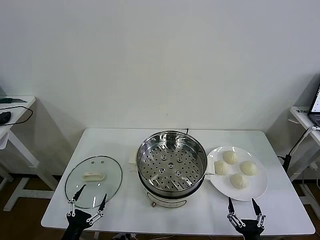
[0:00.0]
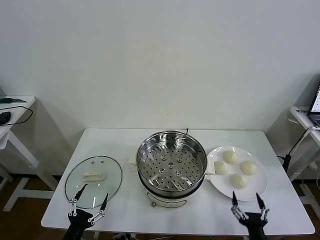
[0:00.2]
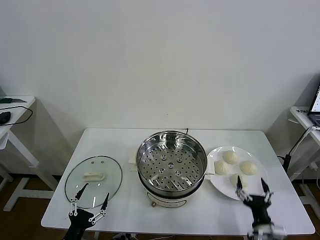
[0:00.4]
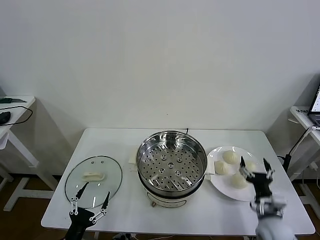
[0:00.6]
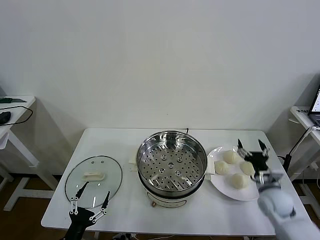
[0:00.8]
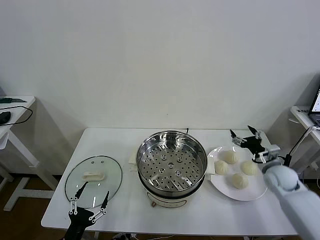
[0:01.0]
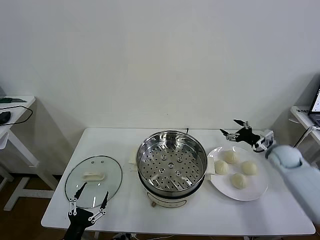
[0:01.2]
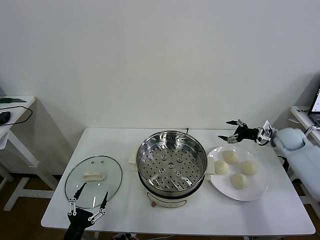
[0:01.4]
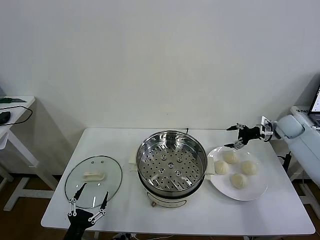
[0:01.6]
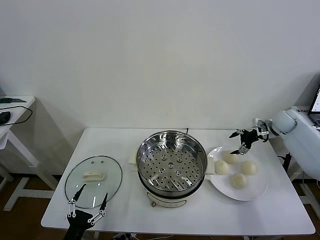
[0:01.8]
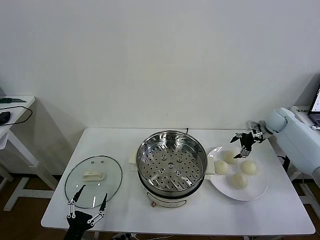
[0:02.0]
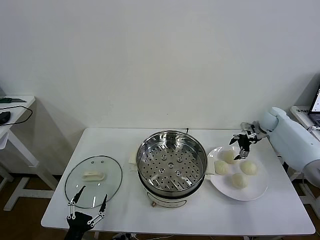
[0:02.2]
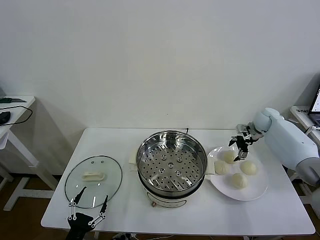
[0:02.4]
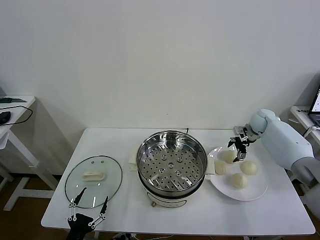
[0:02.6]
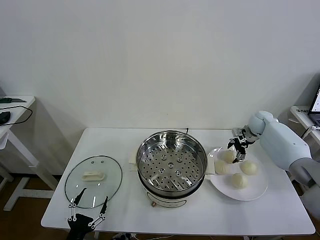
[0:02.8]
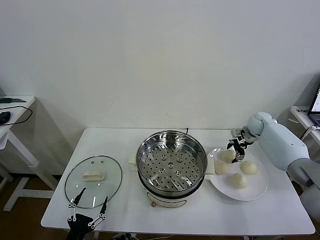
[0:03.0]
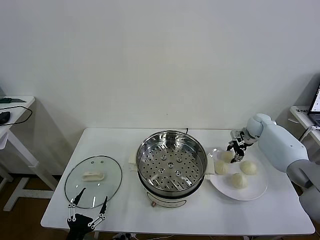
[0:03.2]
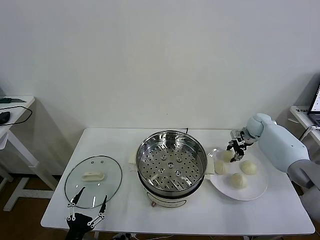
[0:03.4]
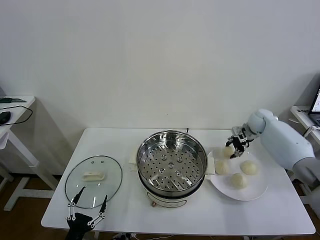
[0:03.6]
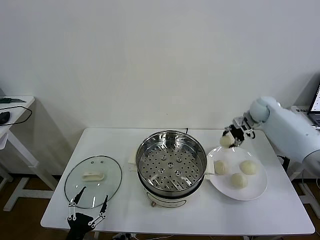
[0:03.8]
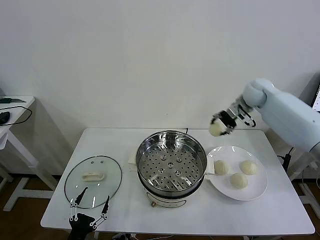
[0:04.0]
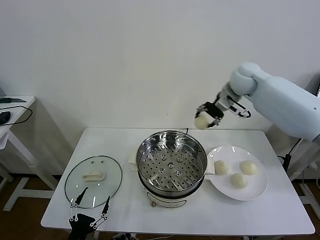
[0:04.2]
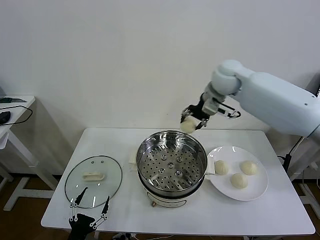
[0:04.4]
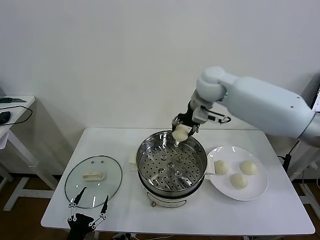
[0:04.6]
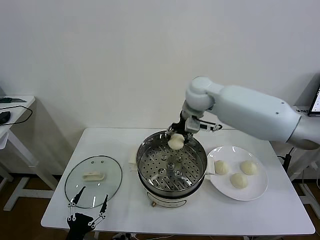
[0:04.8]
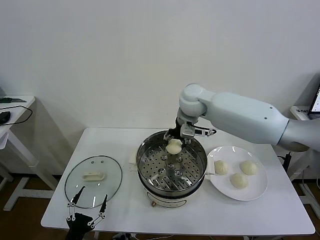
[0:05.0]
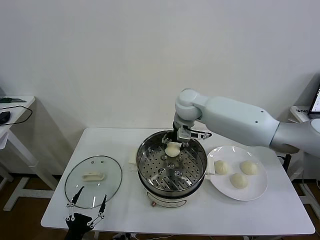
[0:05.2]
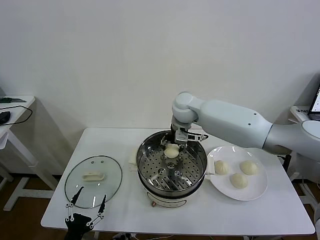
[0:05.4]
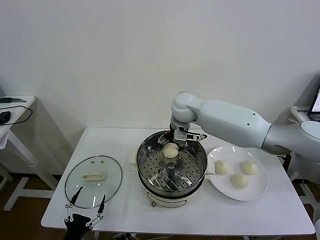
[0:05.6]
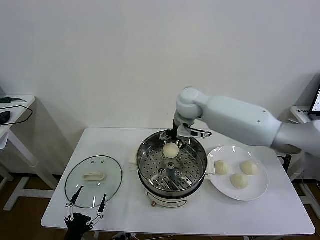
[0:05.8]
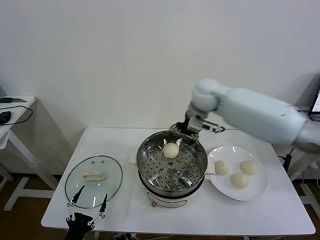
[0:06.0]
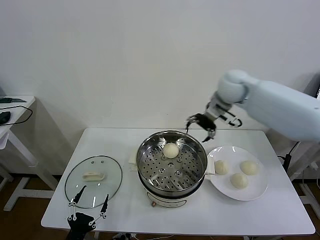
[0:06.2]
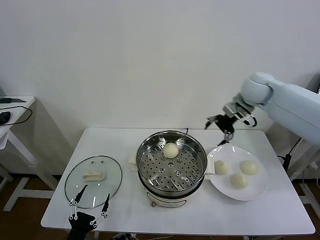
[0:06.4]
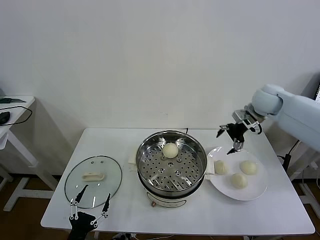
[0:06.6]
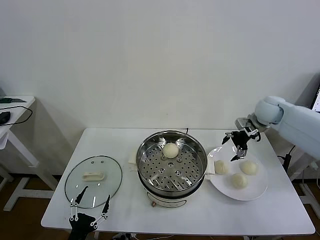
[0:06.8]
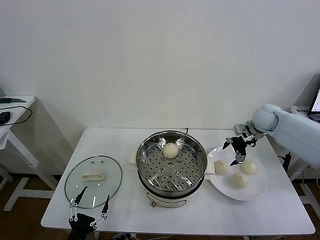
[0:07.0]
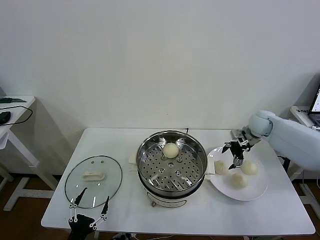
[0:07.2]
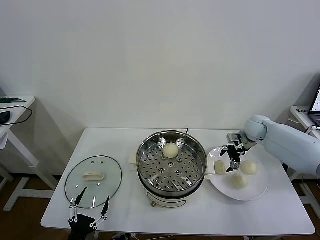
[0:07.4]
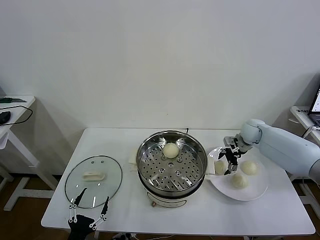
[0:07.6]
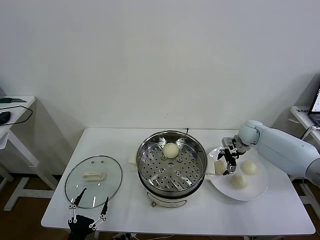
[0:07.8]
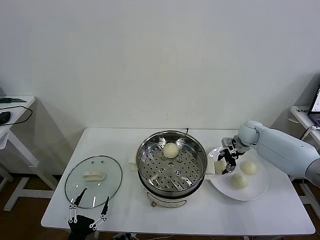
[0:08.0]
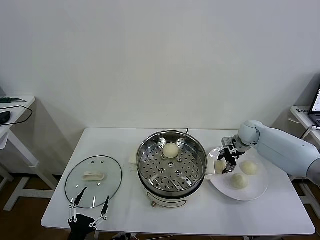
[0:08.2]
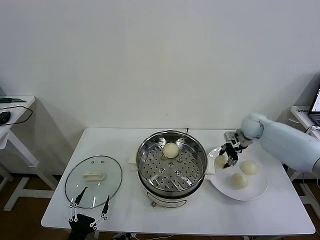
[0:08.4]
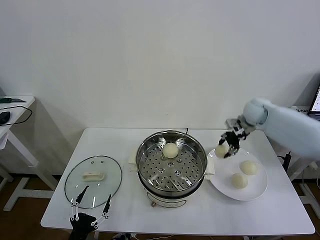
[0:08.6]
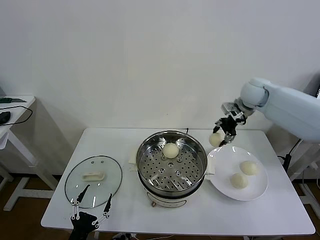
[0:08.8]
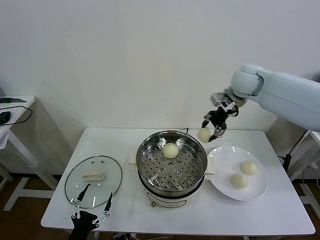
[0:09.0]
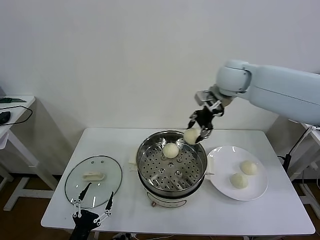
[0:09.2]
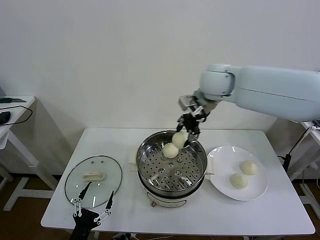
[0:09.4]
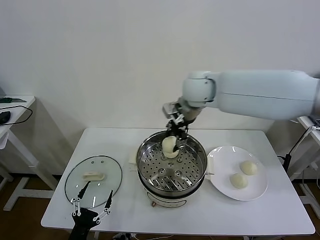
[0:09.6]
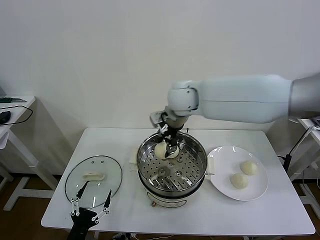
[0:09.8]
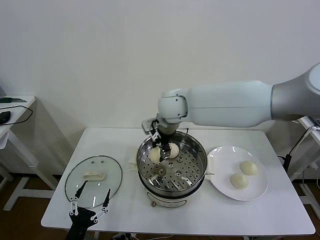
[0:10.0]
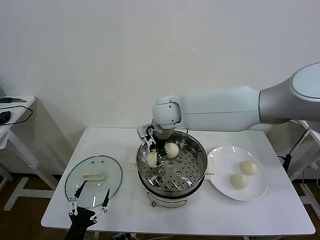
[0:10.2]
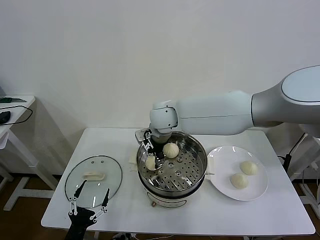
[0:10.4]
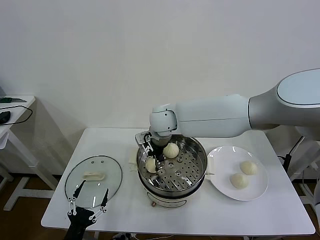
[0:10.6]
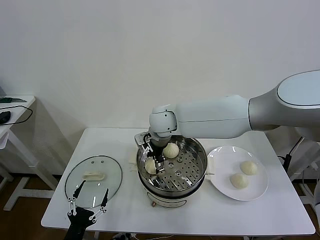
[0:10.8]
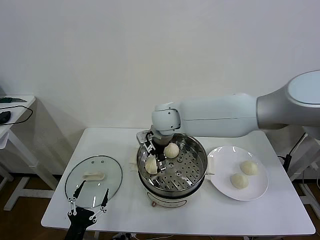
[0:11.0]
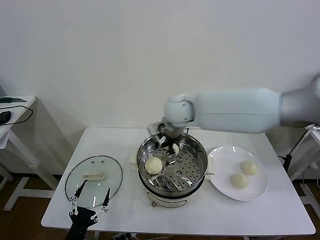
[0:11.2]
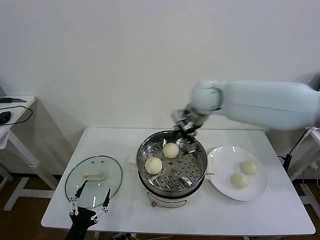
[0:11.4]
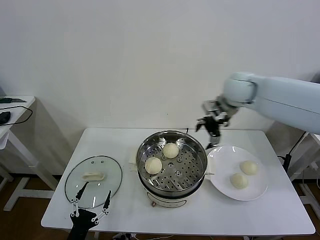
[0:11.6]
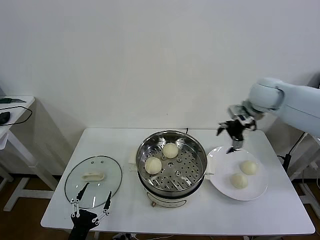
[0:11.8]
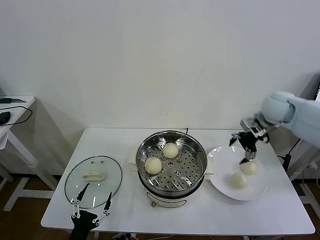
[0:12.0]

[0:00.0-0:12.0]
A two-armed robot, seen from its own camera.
Task of the whole recording: take steamed baozi put them in steamer then cover it.
Step, 0.0 to 3.2 s: Grasp the baozi in the plate with right gripper.
Step, 3.4 to 5.6 s: Place the baozi on the steamer with right gripper.
Step, 5.8 to 8.0 s: Grasp the baozi in the plate with right gripper.
Step, 8.2 to 10.8 s: Place the baozi on the steamer with right gripper.
1.6 to 3.0 s: The right gripper heads to the left and downward, covering roughly 10 cm, and closes its fingers.
3.0 to 4.4 s: The right gripper heads to the left and upward, covering some 35 cm.
4.4 to 6.0 s: The right gripper heads to the right, covering approximately 5 cm, and opens up.
6.0 to 7.6 s: The right gripper travels downward and to the right by about 25 cm.
7.6 to 9.0 s: The right gripper is displaced upward and to the left by approximately 30 cm, and closes its fingers.
9.0 to 10.4 s: The right gripper goes roughly 25 cm to the left and downward.
10.4 to 12.0 s: The right gripper goes roughly 35 cm to the right, and opens up.

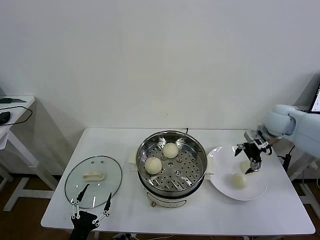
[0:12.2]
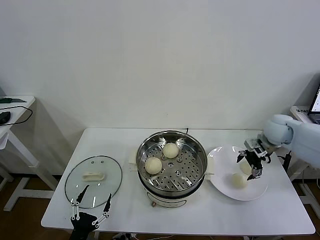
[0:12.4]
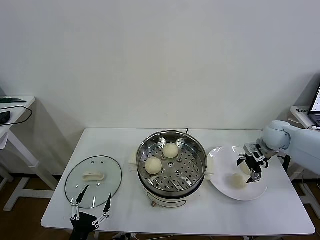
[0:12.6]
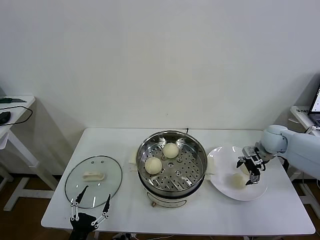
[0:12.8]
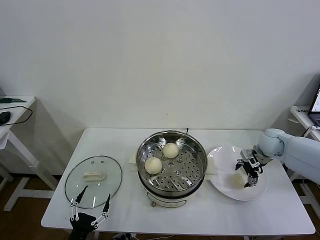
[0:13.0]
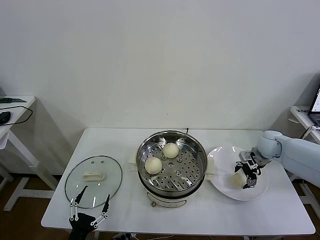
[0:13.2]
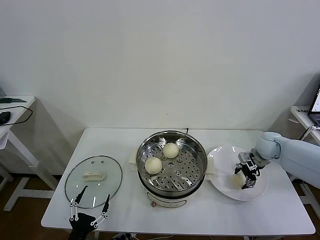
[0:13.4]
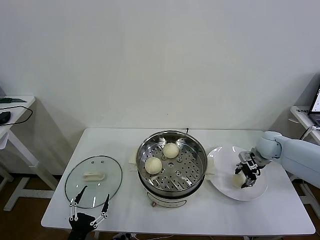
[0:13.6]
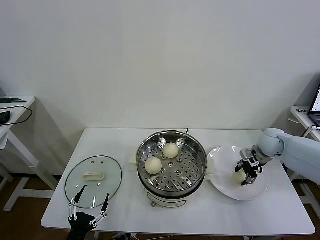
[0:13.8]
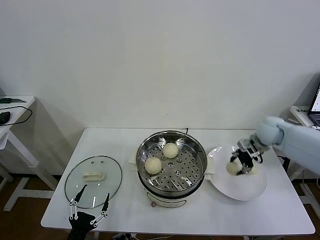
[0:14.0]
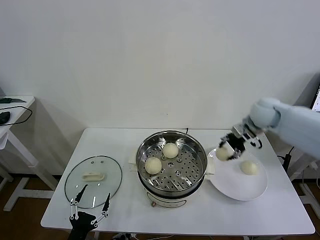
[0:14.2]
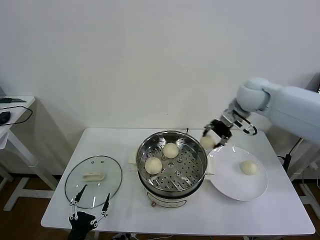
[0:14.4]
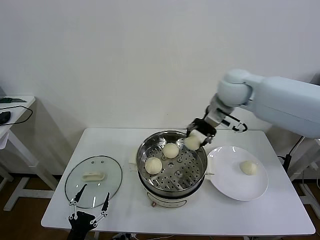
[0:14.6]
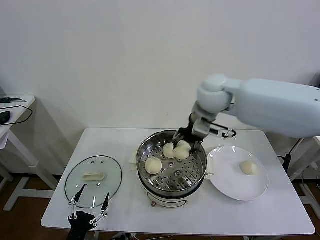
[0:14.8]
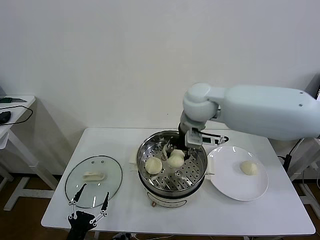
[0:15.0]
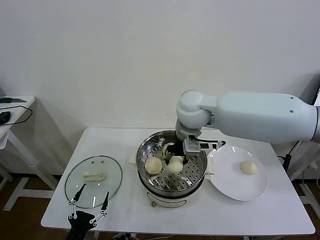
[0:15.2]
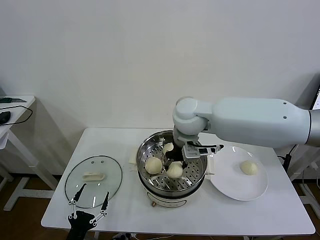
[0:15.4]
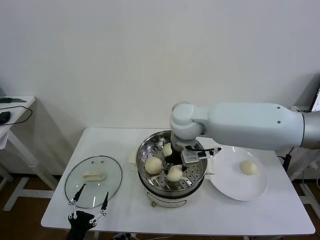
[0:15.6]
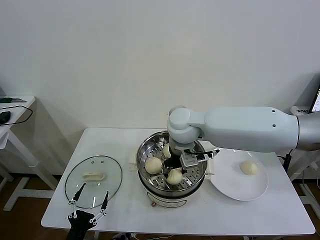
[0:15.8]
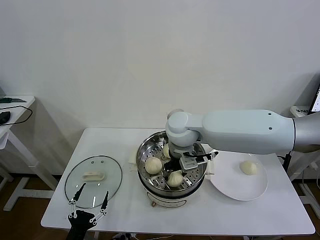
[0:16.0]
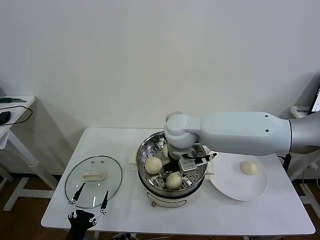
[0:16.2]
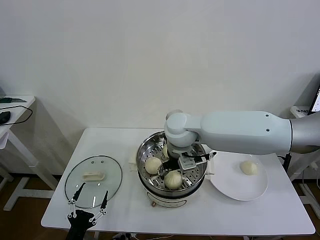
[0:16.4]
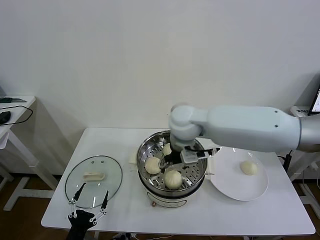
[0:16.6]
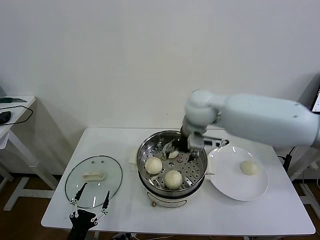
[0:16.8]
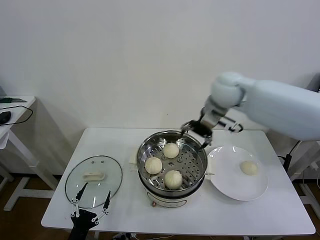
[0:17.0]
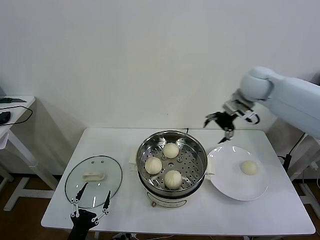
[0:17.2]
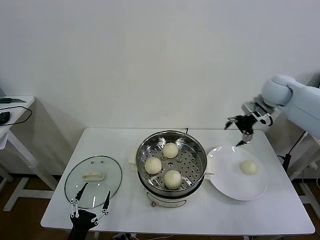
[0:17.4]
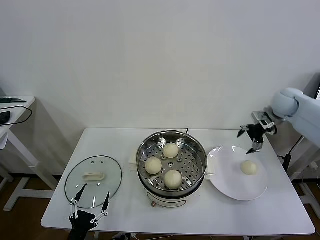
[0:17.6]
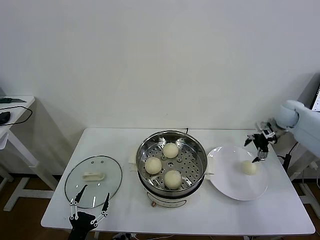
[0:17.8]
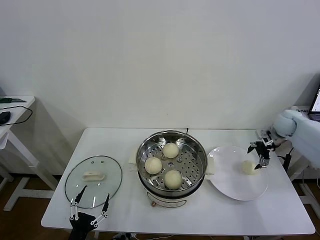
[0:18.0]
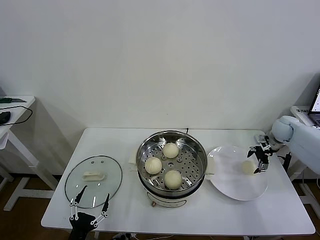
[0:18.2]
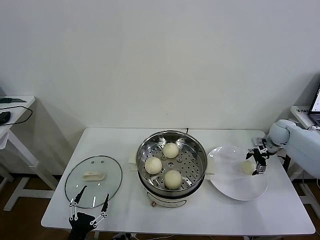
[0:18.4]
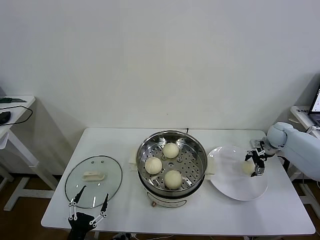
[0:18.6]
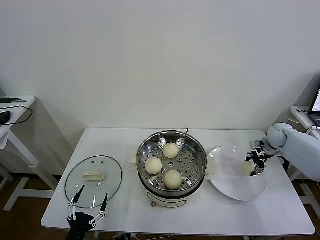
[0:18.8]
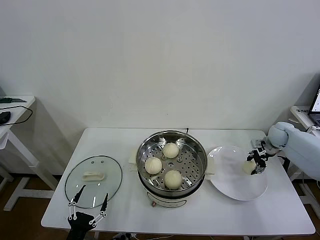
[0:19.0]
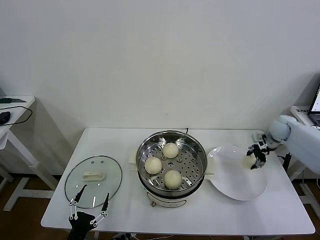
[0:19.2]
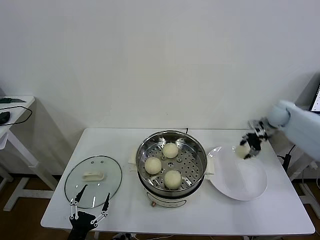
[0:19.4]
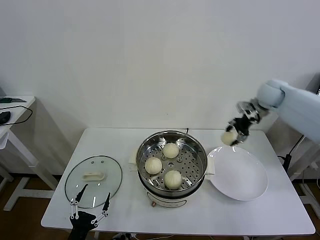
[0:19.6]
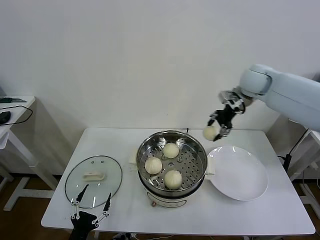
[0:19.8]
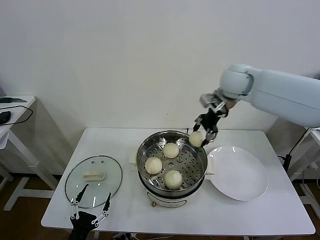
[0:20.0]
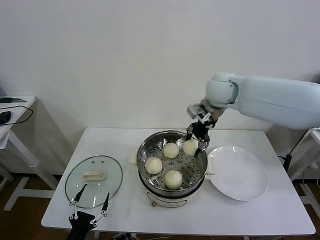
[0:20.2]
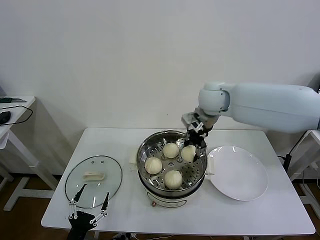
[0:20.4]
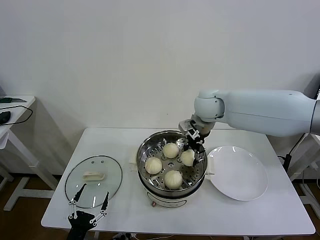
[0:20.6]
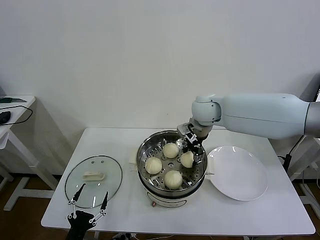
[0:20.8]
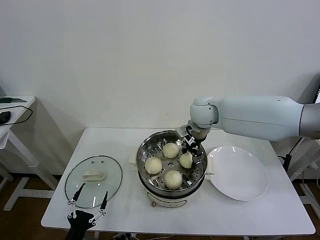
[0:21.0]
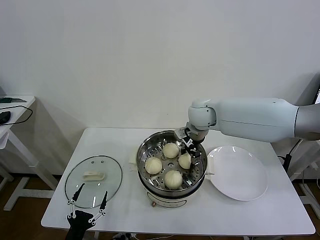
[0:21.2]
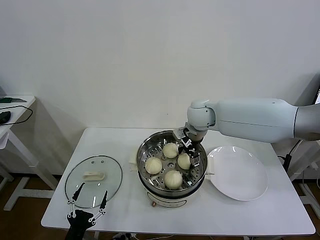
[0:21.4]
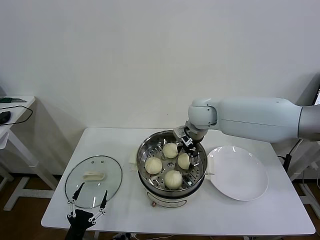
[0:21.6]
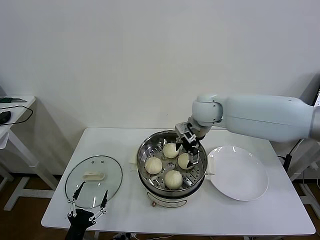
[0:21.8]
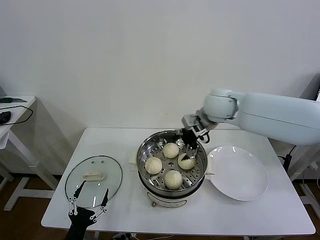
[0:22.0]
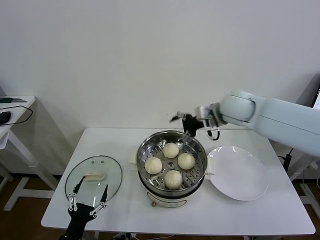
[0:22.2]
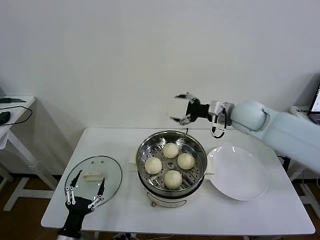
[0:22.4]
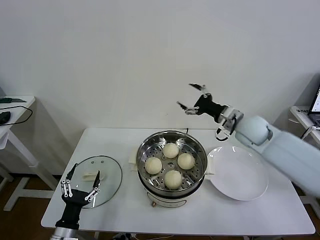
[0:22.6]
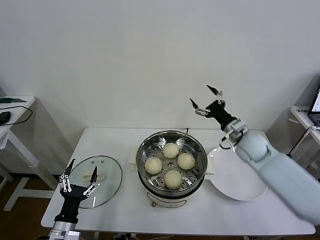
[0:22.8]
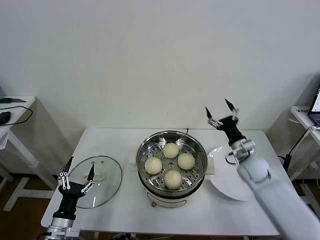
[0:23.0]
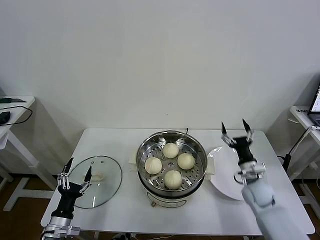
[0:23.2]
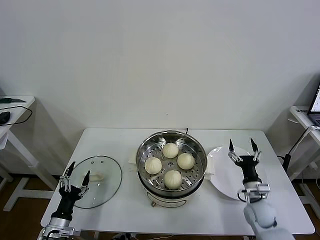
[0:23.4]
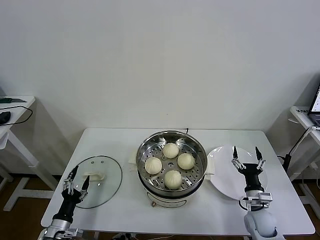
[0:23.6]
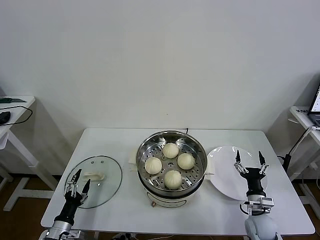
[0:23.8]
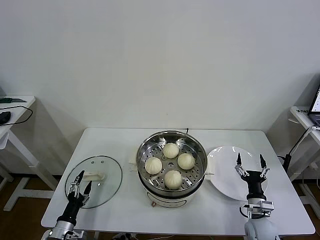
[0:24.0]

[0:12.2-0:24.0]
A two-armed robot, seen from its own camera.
Task of the whole recording: take steamed baozi put them in steamer then cover it.
Step, 13.8 to 16.4 s: Place the baozi on the steamer with right gripper.
Step, 16.6 to 19.0 s: Grasp the baozi in the plate with right gripper.
Step, 19.2 to 21.6 s: Place the baozi on the steamer with right gripper.
12.2 to 13.6 s: The right gripper travels downward by some 10 cm, and closes.
13.6 to 15.2 s: The right gripper heads to the left and upward, covering about 35 cm.
15.2 to 16.6 s: The right gripper opens its fingers.
16.6 to 18.2 s: The right gripper is displaced to the right by approximately 40 cm.
18.2 to 19.6 s: The right gripper heads upward and to the left, covering some 20 cm, and closes.
19.6 to 21.0 s: The right gripper moves to the left, about 20 cm.
21.0 to 22.6 s: The right gripper heads to the right, covering some 15 cm, and opens up. Meanwhile the left gripper moves some 5 cm.
22.6 to 24.0 s: The left gripper goes some 10 cm downward and to the left. Meanwhile the right gripper is displaced downward and backward by roughly 35 cm.
